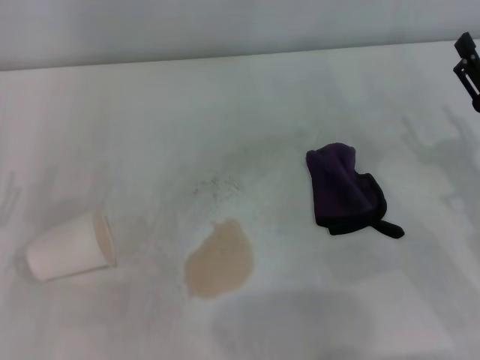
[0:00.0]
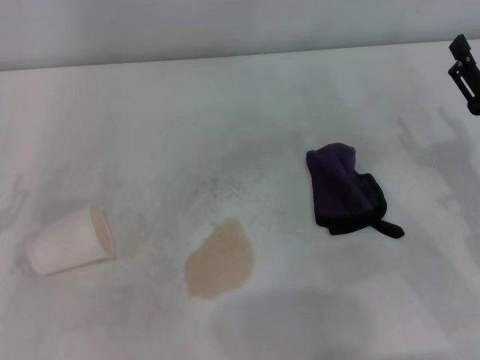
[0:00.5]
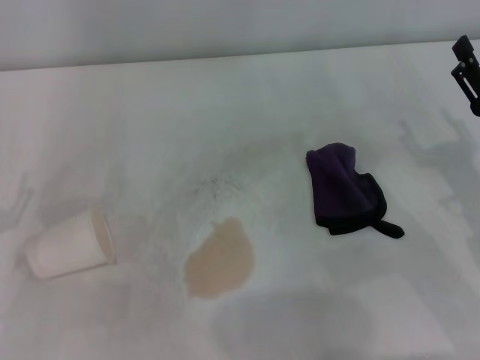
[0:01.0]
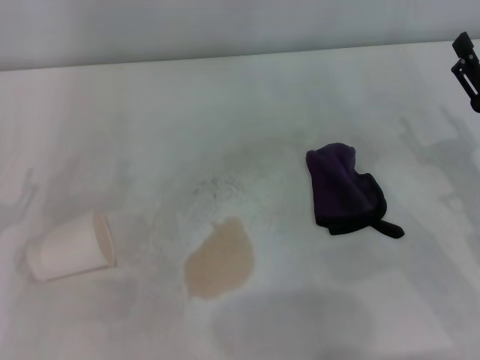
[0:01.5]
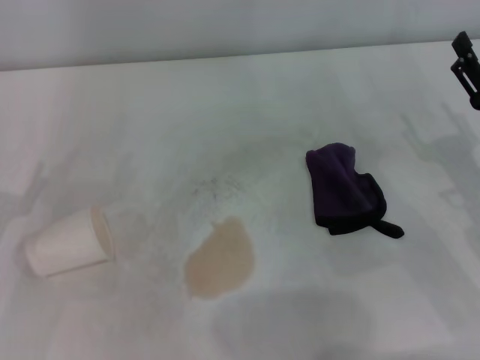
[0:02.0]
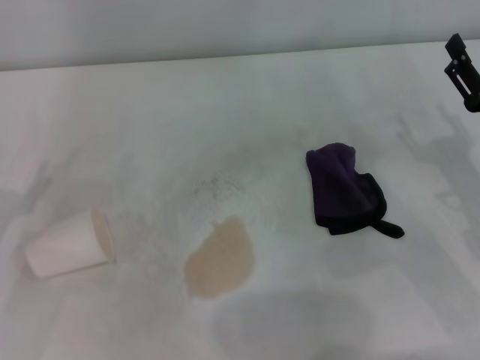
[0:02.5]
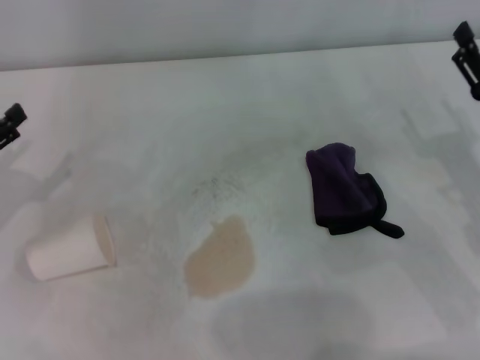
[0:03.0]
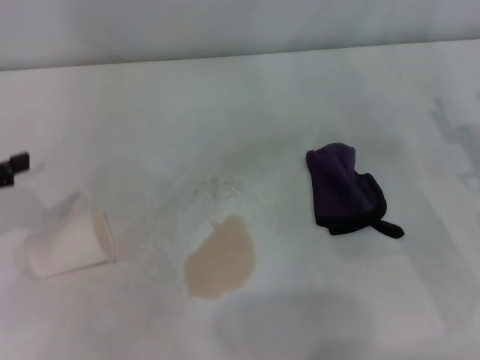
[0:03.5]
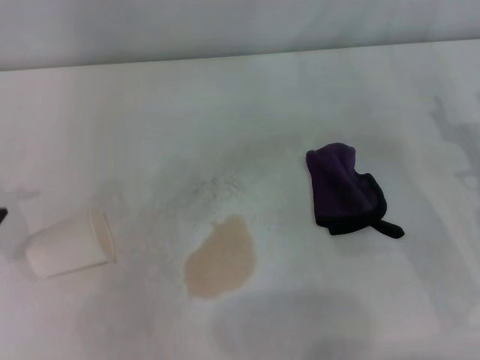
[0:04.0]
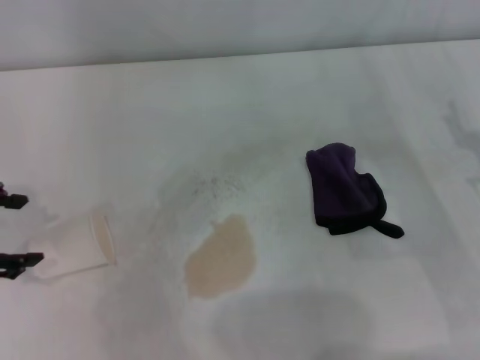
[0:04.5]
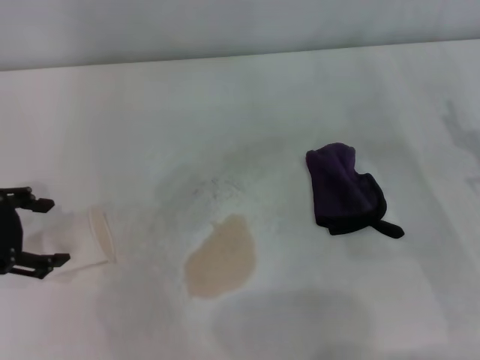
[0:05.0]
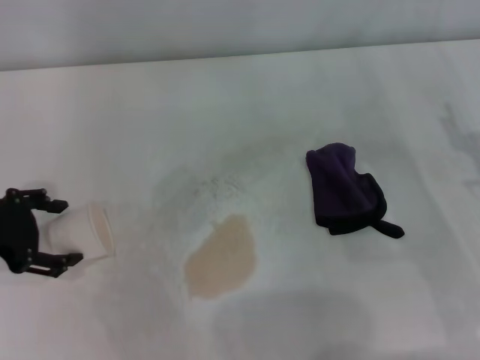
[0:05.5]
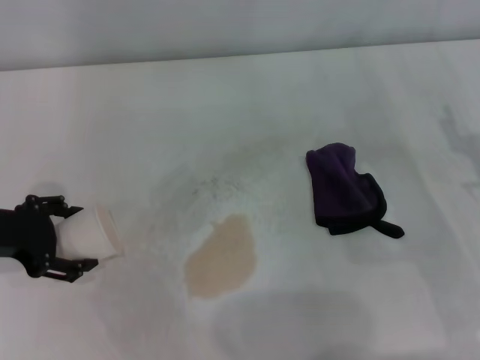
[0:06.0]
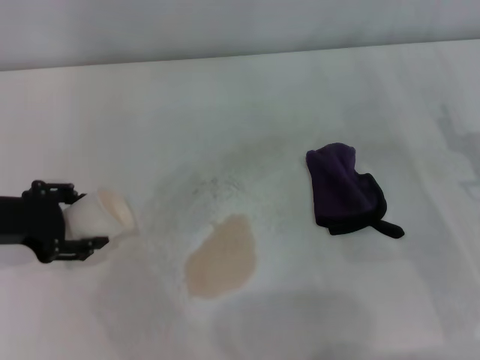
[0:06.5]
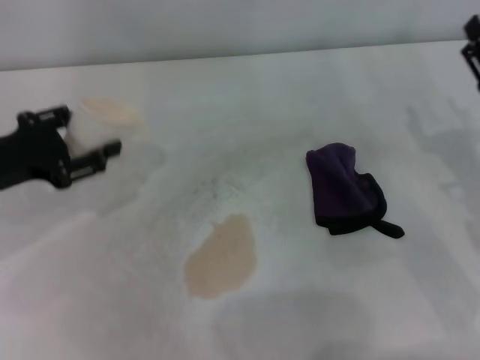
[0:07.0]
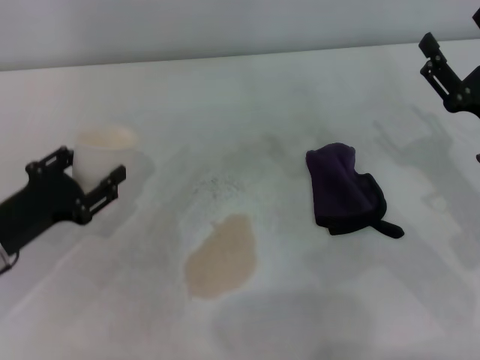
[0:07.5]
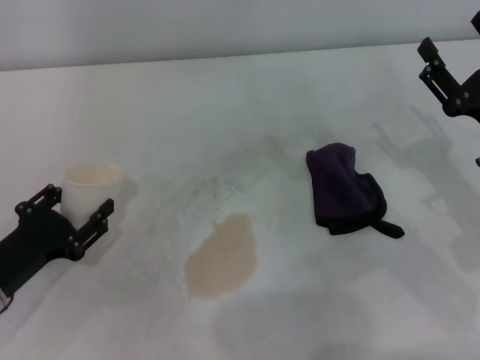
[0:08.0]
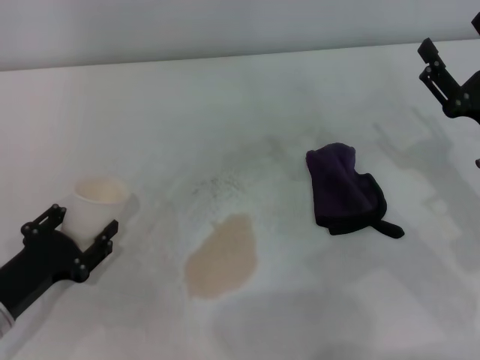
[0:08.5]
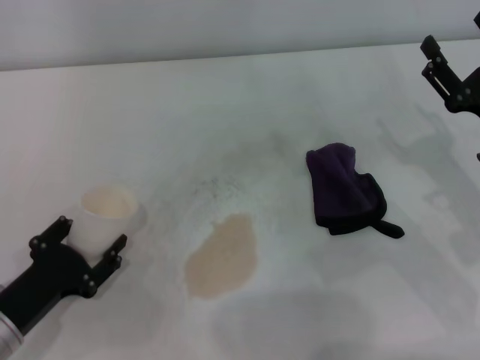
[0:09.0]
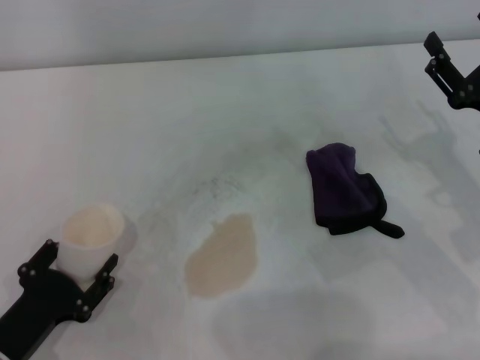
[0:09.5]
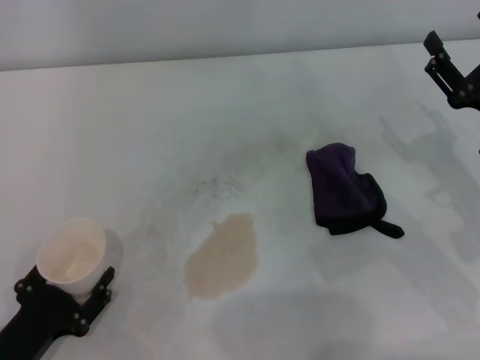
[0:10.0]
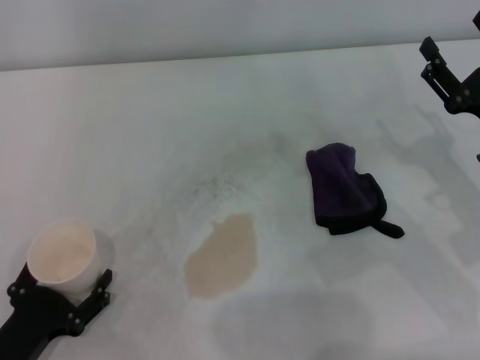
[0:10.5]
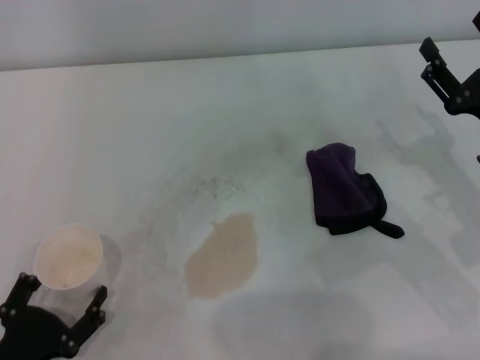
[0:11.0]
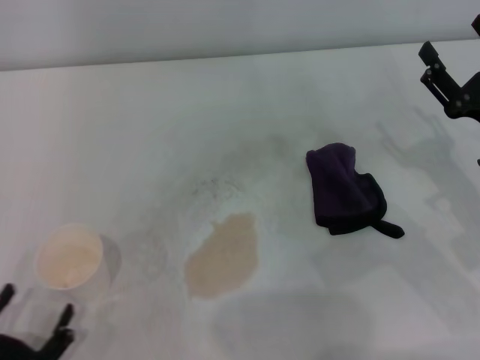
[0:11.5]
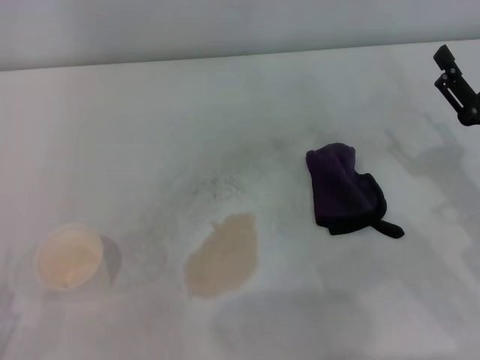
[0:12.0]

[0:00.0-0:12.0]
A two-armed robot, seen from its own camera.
Step, 0:00.0 to 0:06.0: Grasp the paper cup with the left gripper.
Step, 0:06.5 to 0:10.0: Stand the paper cup upright with the left gripper.
0:04.0 to 0:06.0: The left gripper goes roughly 10 cm downward and to the right.
0:06.0 to 0:08.0: The left gripper moves downward and backward, about 10 cm, and closes its fingers.
0:08.0 to 0:10.0: The left gripper goes about 10 cm backward.
0:10.0 to 0:12.0: The left gripper goes some 5 cm backward, and opens up.

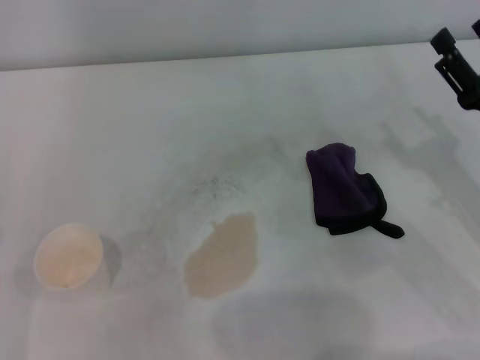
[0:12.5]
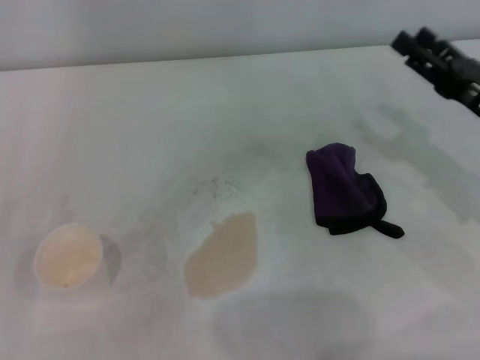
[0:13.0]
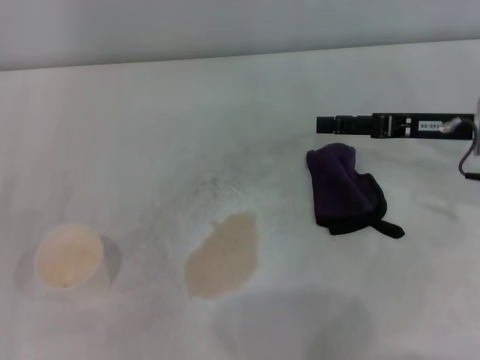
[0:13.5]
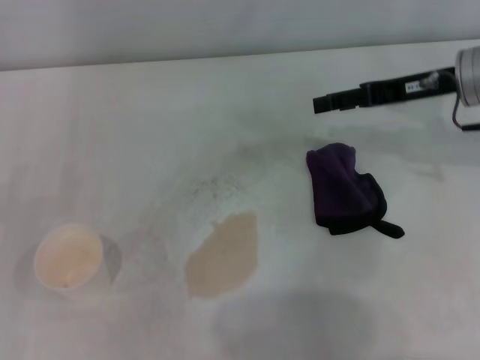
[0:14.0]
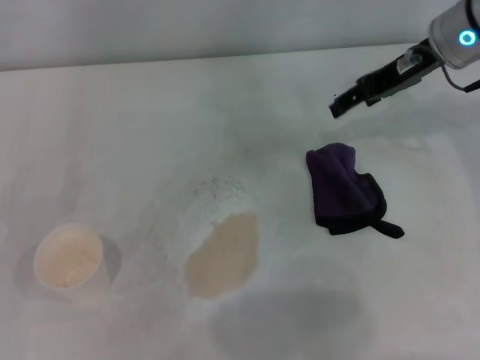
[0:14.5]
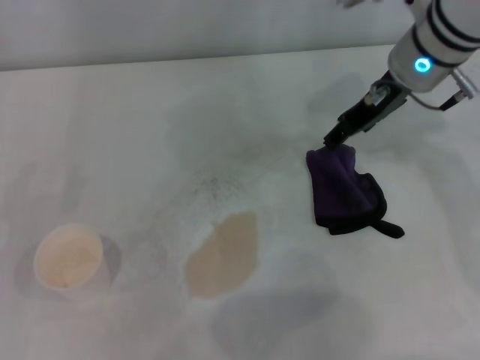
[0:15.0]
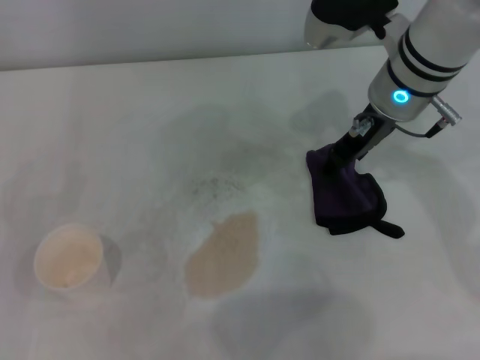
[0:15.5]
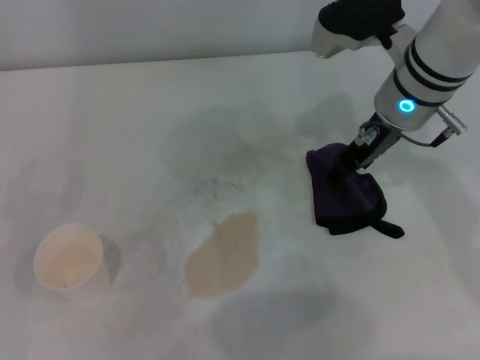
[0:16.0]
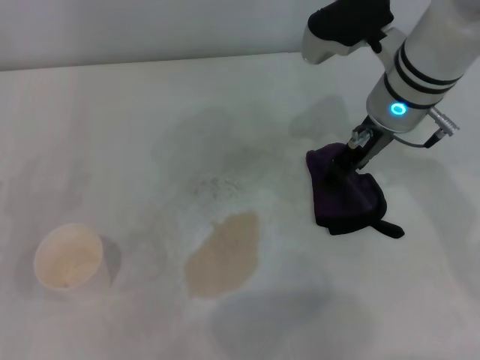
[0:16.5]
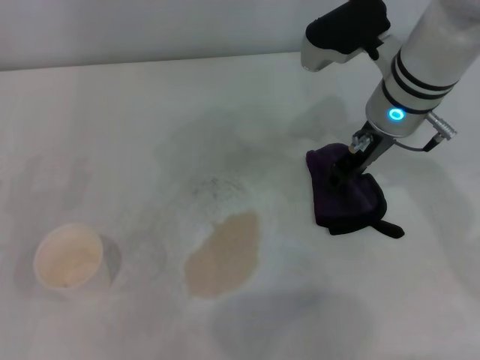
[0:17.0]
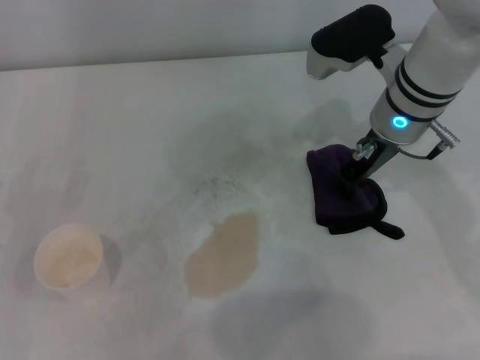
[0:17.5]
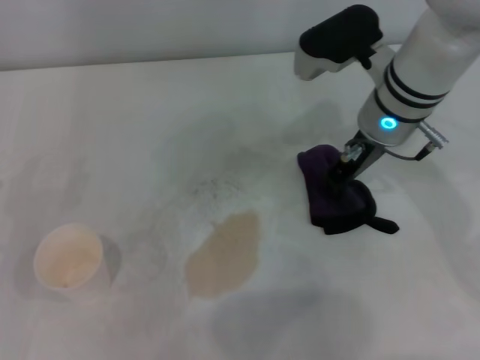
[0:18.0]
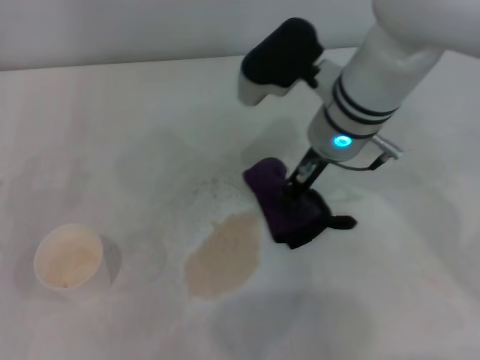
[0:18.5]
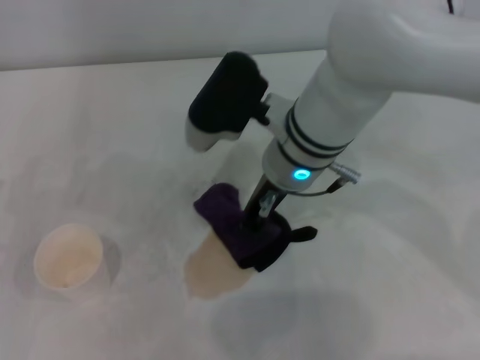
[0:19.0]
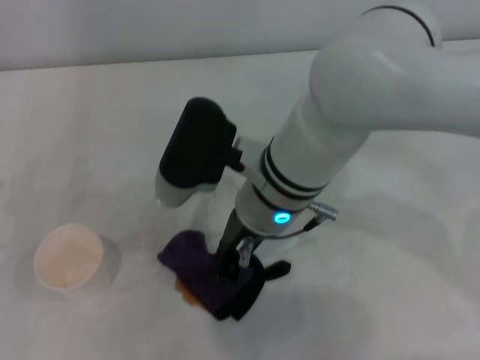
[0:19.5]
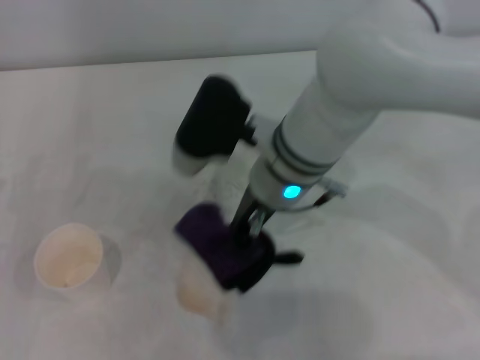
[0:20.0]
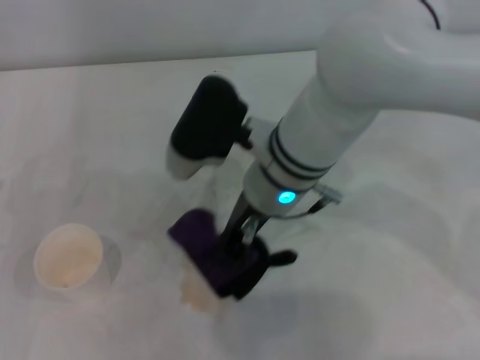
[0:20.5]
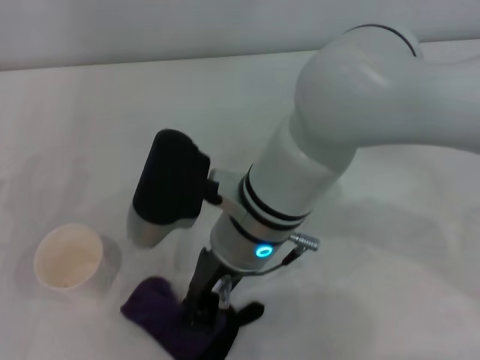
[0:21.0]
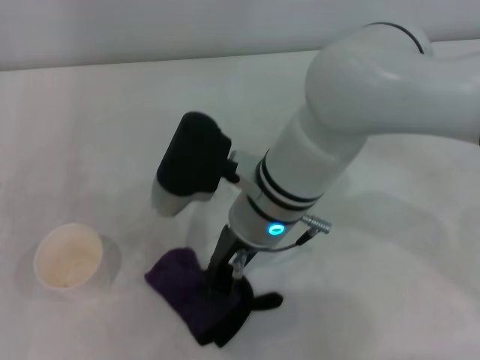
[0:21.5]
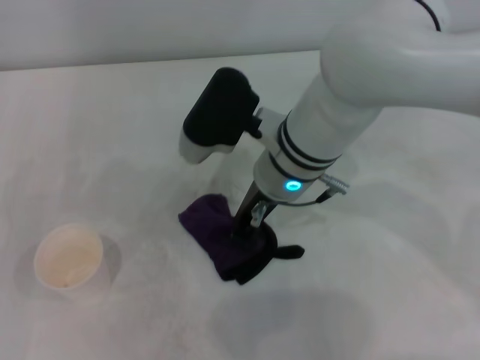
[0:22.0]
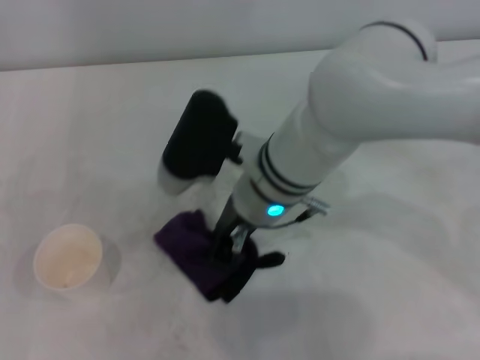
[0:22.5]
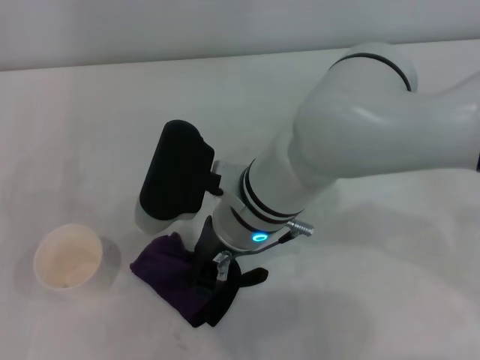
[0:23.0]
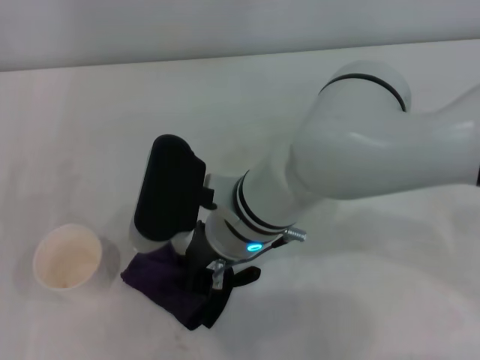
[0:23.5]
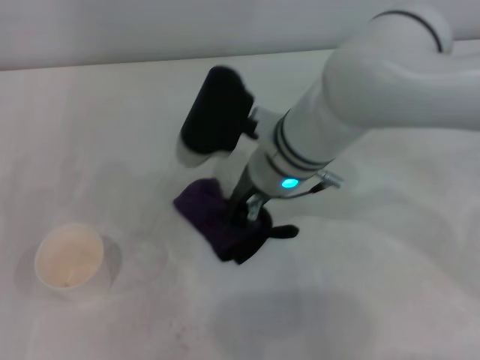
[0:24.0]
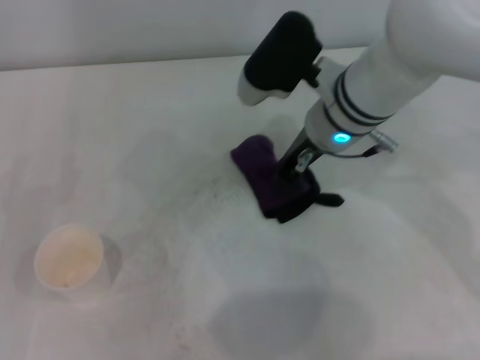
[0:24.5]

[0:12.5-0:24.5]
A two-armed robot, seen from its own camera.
Step, 0:12.5 to 0:17.5: Grasp the rag with the right gripper.
0:12.5 to 0:14.5: The right gripper is displaced forward and upward by about 20 cm.
0:14.5 to 0:16.5: The right gripper goes roughly 10 cm to the left.
0:16.5 to 0:18.5: The right gripper shifts some 5 cm to the left, and closes up.
0:18.5 to 0:20.5: The right gripper shifts approximately 5 cm to the left.
0:20.5 to 0:22.5: The grippers stay close to where they were, moving slightly.
0:22.5 to 0:24.5: The right gripper moves to the right and forward, roughly 10 cm.

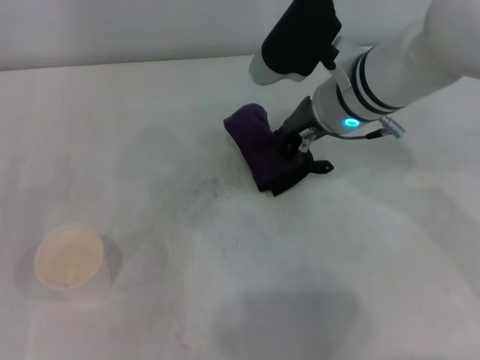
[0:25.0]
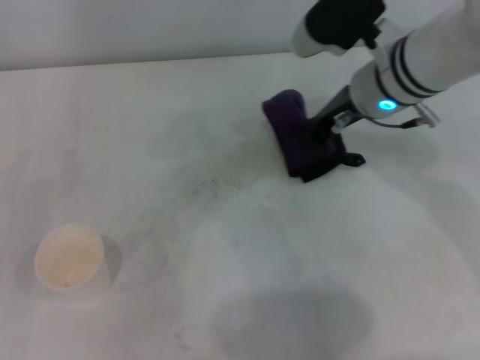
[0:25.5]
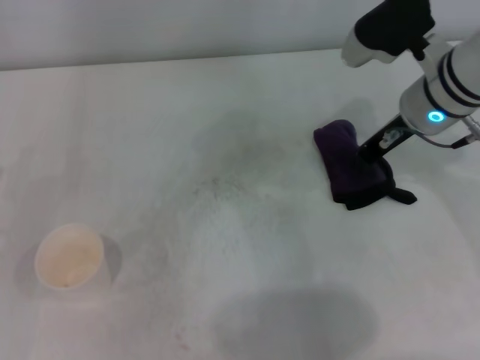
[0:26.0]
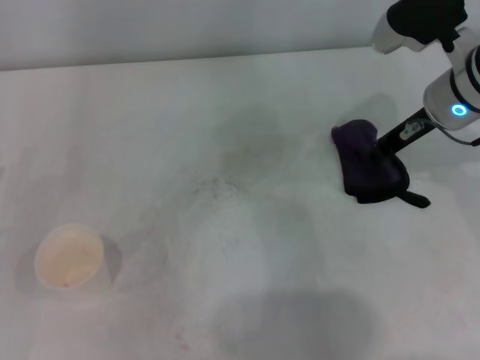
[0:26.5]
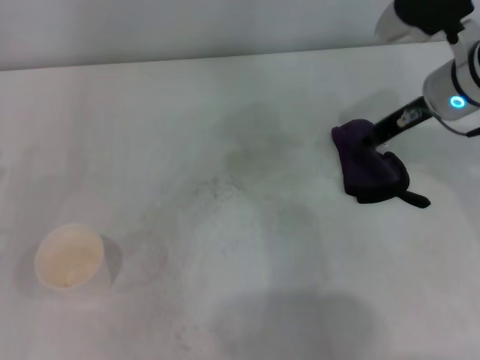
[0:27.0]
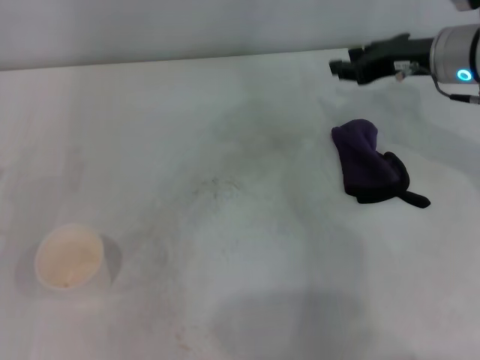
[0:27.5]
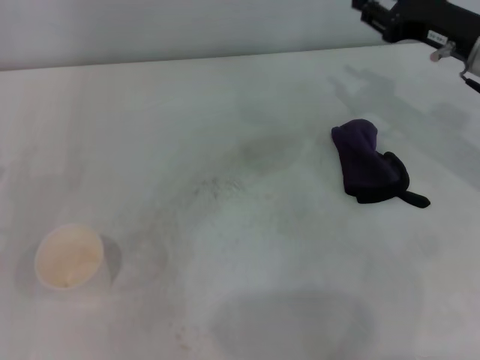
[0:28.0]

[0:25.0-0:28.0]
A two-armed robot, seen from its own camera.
Step, 0:26.0 to 0:26.5: Place the rag on the table with the right gripper.
0:25.0 to 0:26.5: The right gripper heads to the right, covering about 10 cm.
0:26.5 to 0:28.0: The right gripper moves some 5 cm, and opens.
